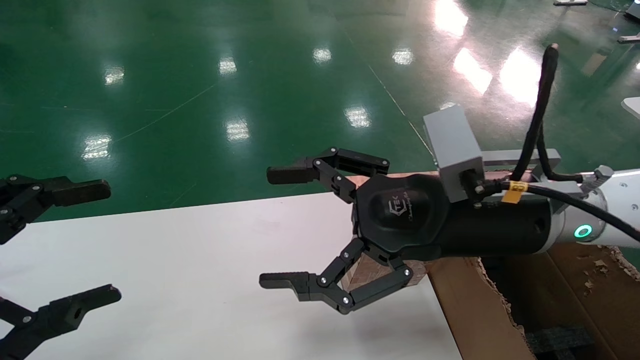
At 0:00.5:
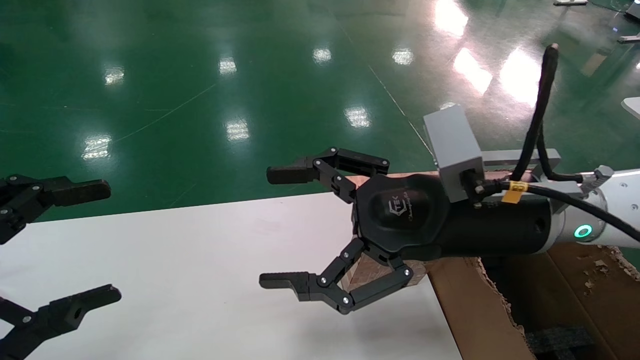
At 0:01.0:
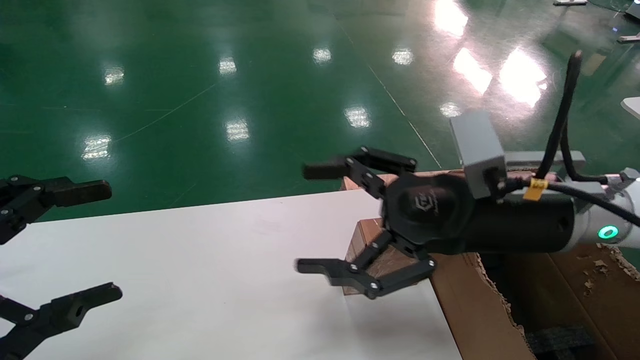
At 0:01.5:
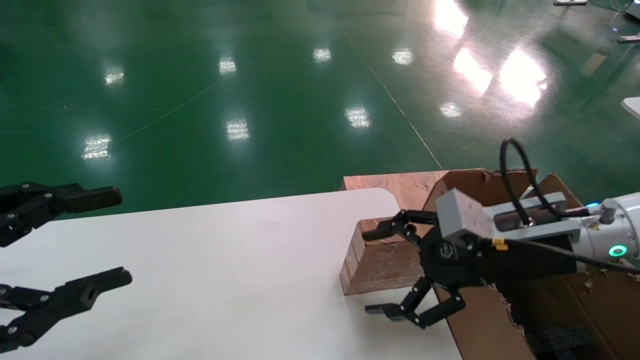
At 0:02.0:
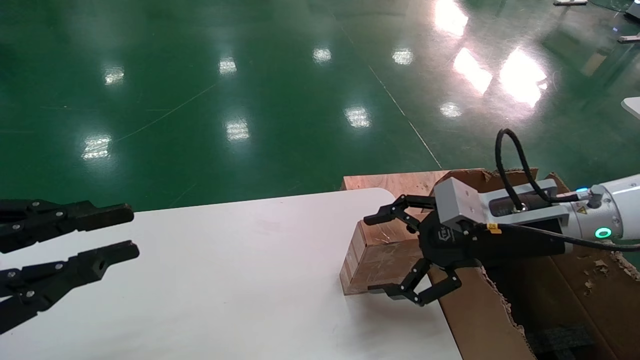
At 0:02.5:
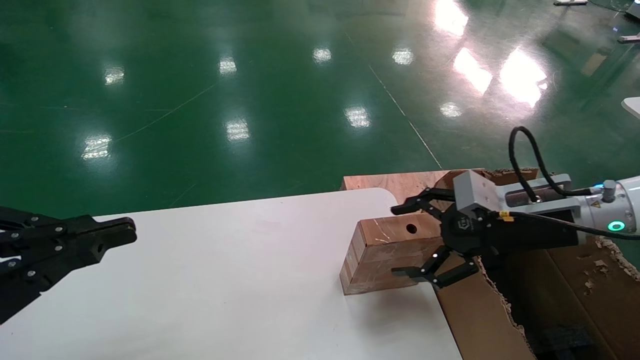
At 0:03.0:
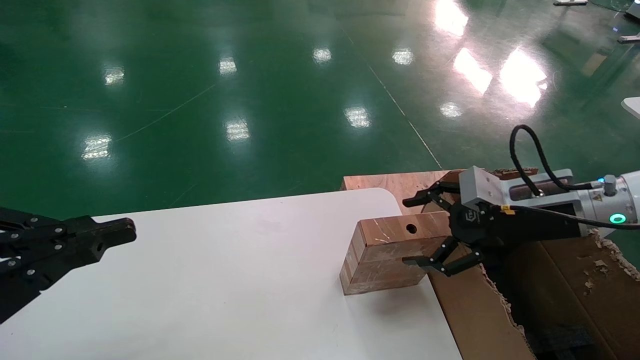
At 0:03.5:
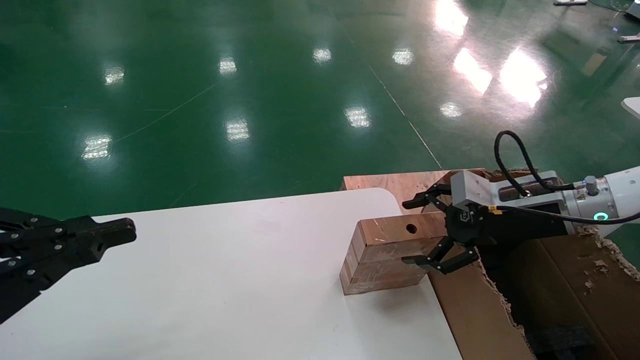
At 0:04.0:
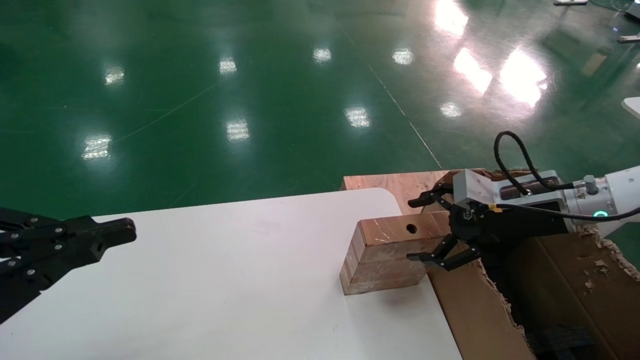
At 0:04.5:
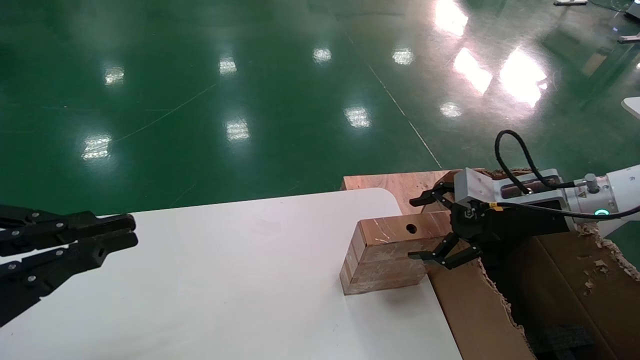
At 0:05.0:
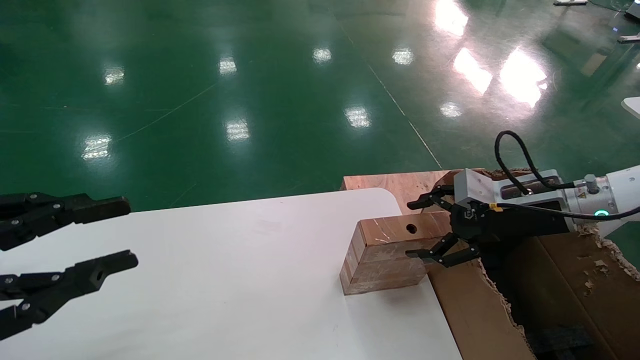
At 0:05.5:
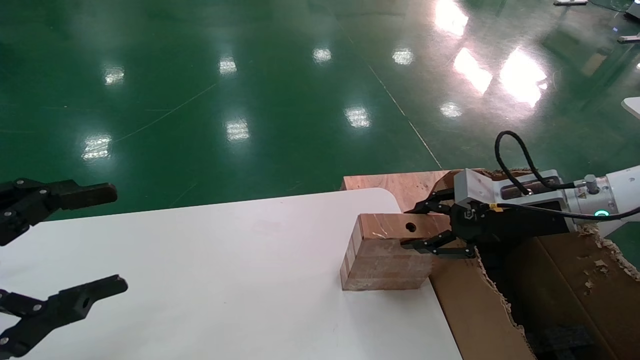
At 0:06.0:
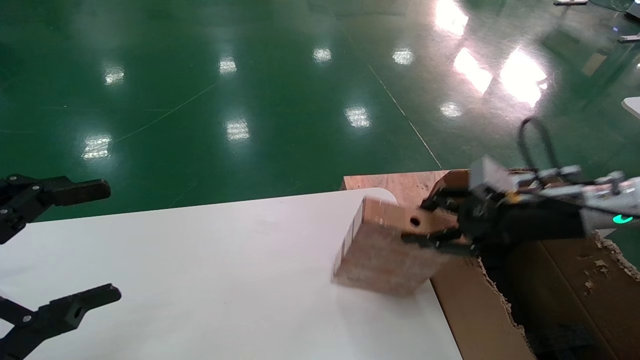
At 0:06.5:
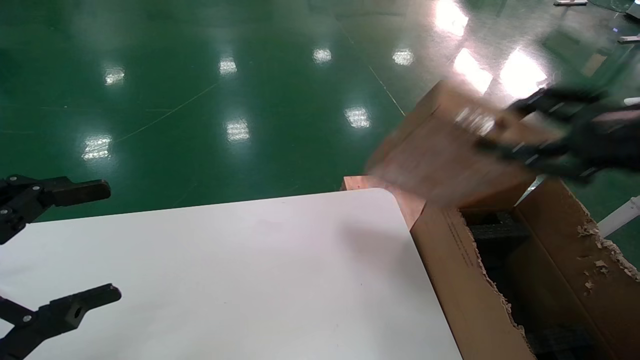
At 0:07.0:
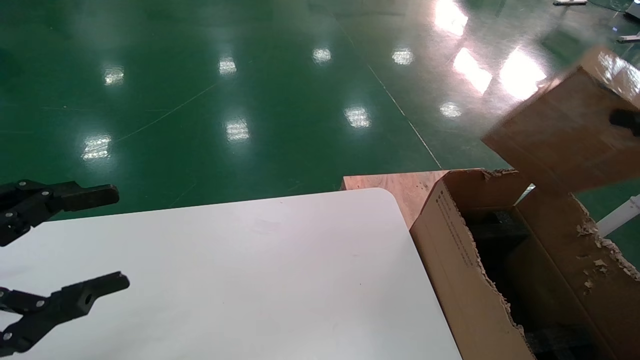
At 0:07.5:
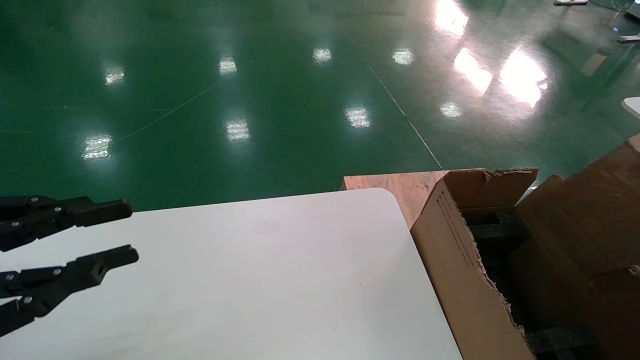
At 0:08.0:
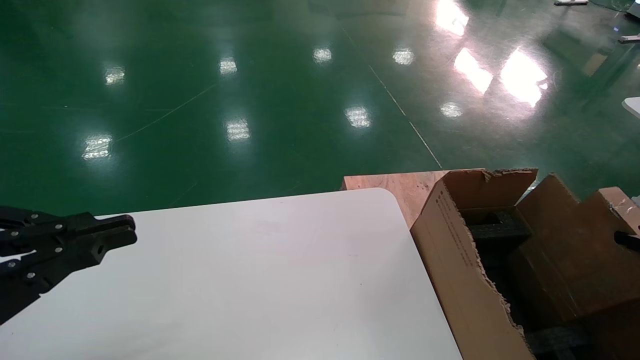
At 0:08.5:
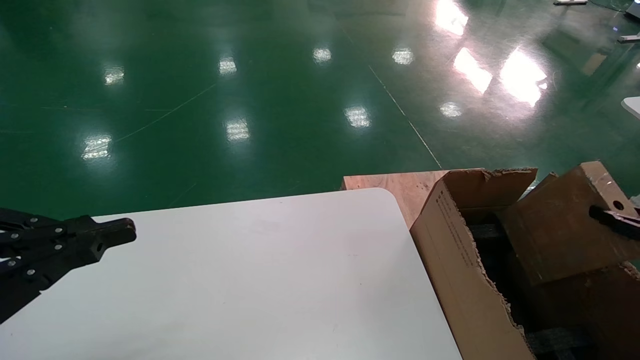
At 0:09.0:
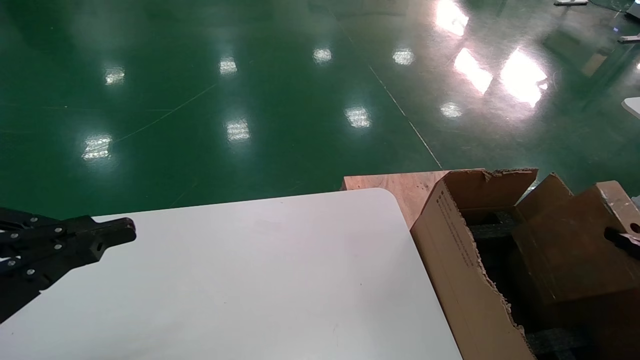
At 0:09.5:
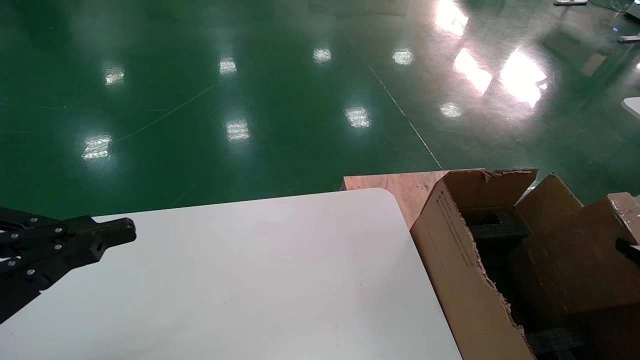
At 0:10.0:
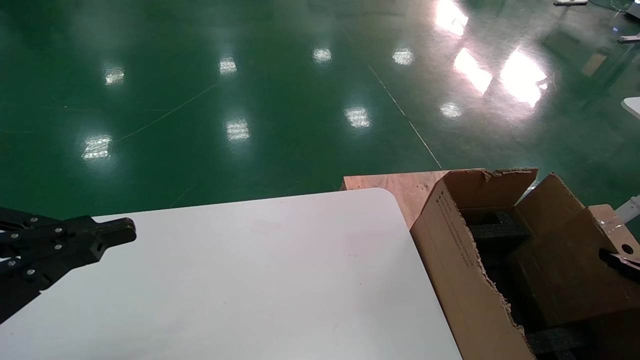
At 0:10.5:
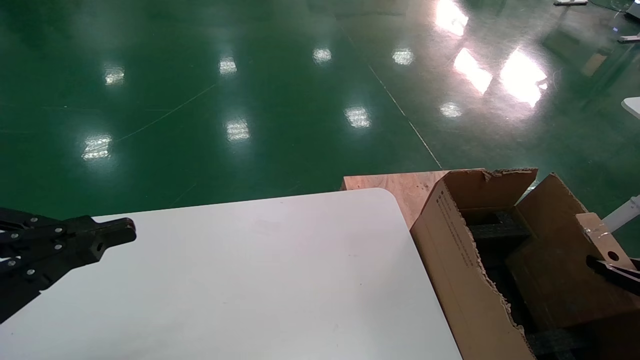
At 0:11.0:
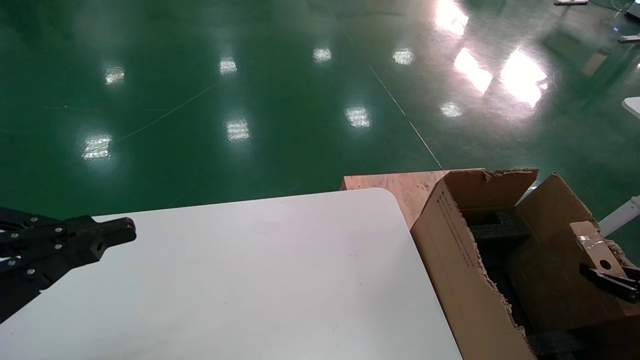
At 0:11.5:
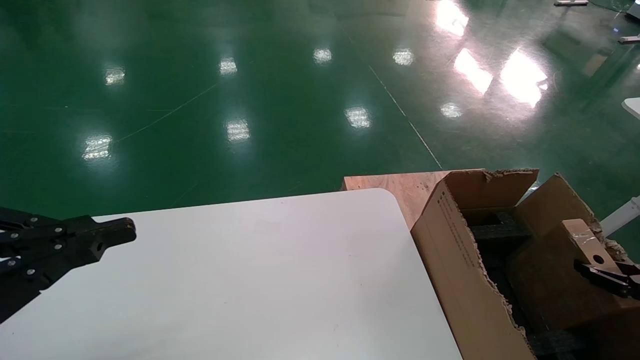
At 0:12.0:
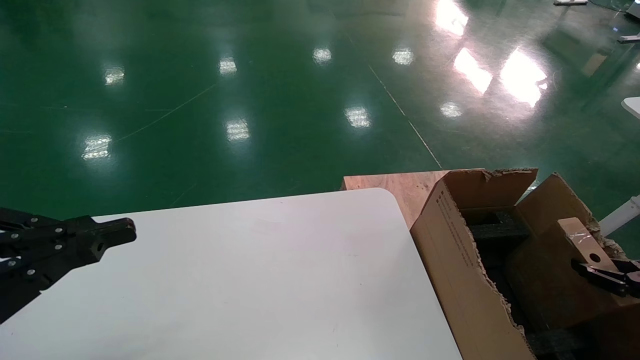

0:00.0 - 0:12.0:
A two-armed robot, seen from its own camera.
Task of the whole recording: put the box on the table into the big box.
Step, 0:01.5 - 0:05.5: Pick up the mouse and the power cord paper box.
0:00.0 - 0:02.0: The left gripper closes its fingers, while the right gripper moves to the right and downward, about 10 cm.
0:02.0 - 0:04.0: The left gripper closes its fingers; the right gripper heads to the right, covering about 5 cm.
0:04.0 - 0:06.0: The left gripper opens its fingers; the right gripper closes its fingers.
0:06.0 - 0:08.0: The right gripper goes roughly 25 cm to the right and backward. The left gripper closes up.
0:08.0 - 0:10.0: The right gripper moves downward, approximately 5 cm.
0:10.0 - 0:12.0: There are only small adjustments of the grippers.

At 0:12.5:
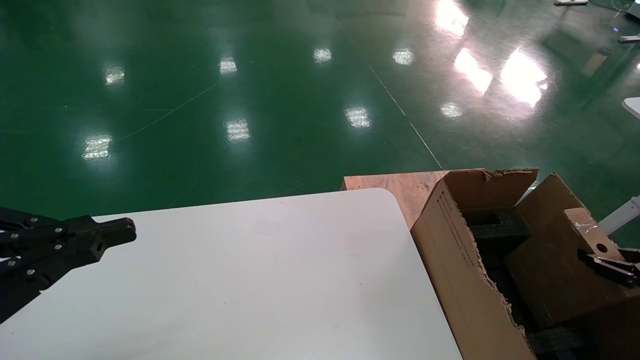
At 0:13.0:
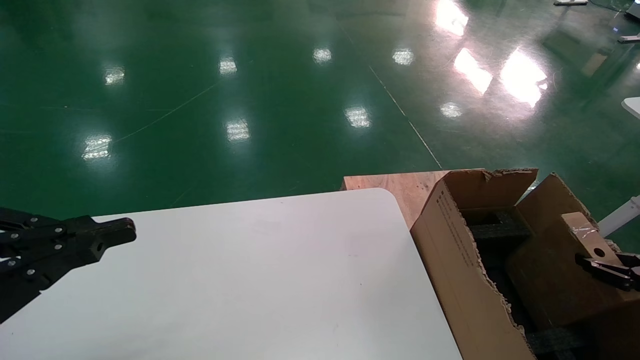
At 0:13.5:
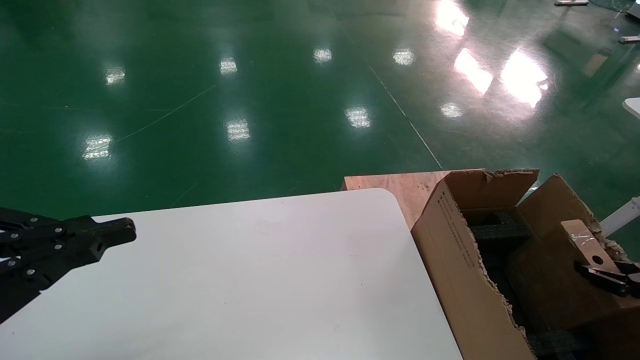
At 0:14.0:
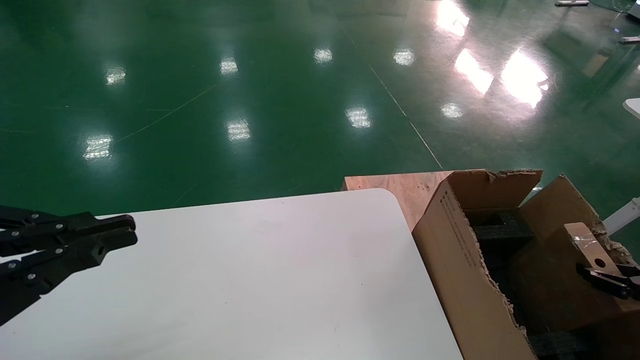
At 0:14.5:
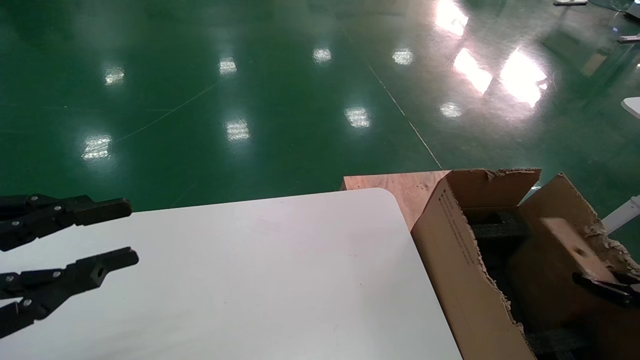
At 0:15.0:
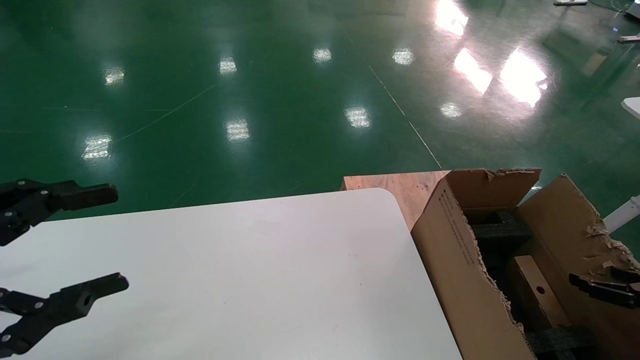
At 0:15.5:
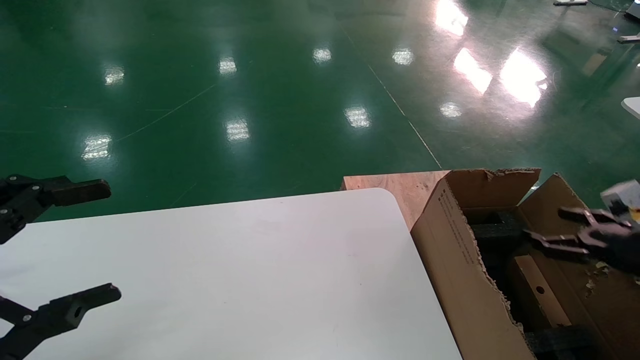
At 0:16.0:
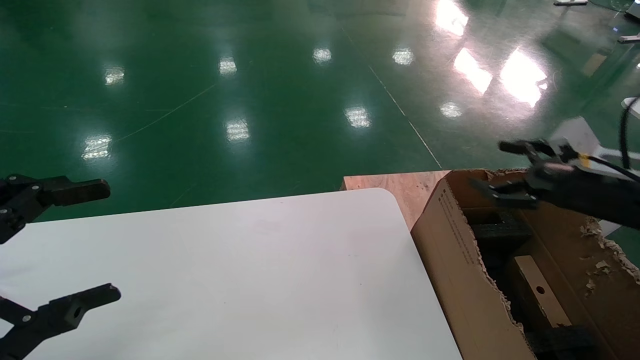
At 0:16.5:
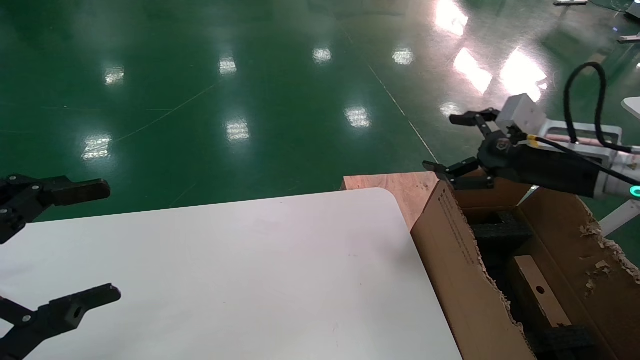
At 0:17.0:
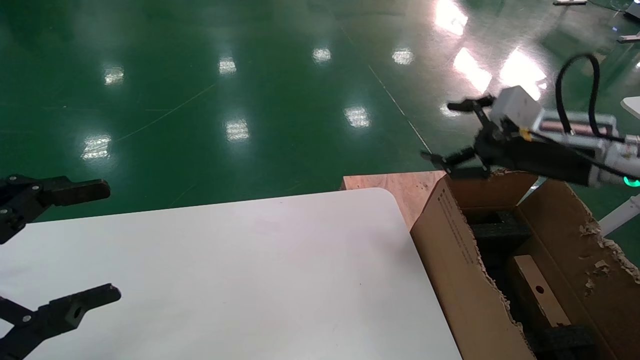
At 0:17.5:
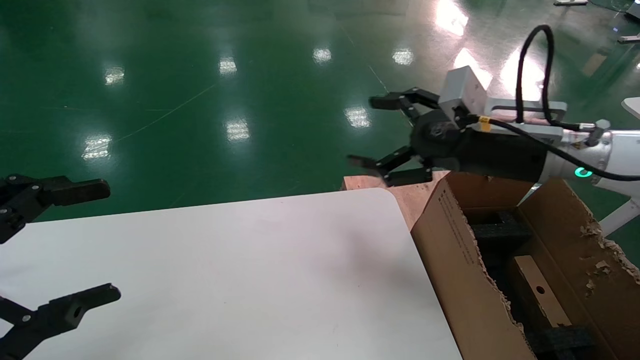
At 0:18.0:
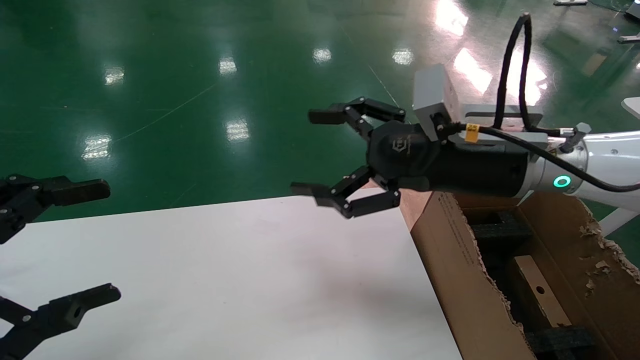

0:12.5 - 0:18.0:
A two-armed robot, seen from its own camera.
Task of the whole recording: put the box on the table into the big box.
Step, 0:12.5 - 0:14.5: Place the mouse and the power cord paper box into the container.
0:12.5 - 0:14.5: The grippers make only small movements.
0:14.5 - 0:16.0: The left gripper opens. Meanwhile the right gripper travels upward, to the left and forward by approximately 20 cm, and opens its fingers.
0:16.0 - 0:18.0: The right gripper travels to the left by some 25 cm.

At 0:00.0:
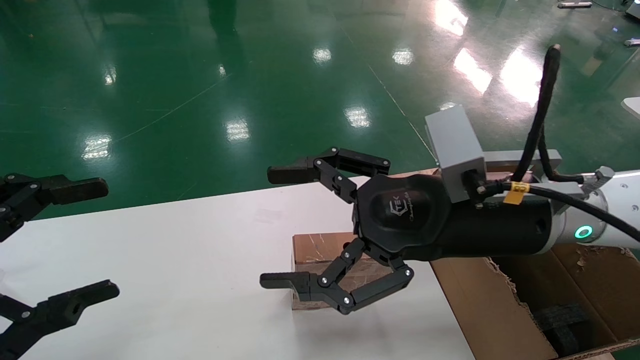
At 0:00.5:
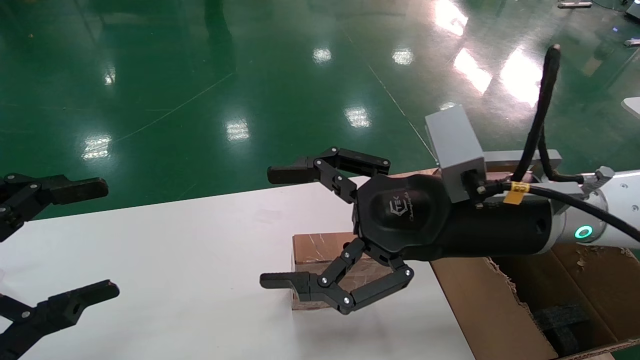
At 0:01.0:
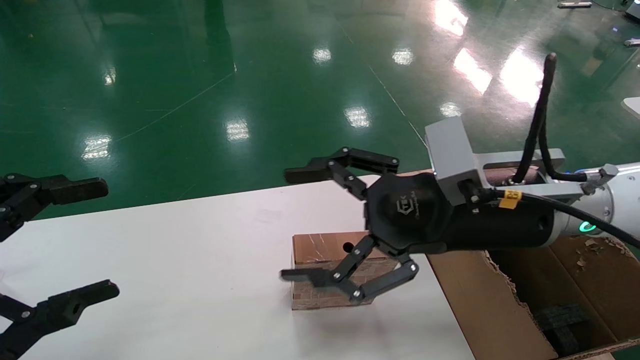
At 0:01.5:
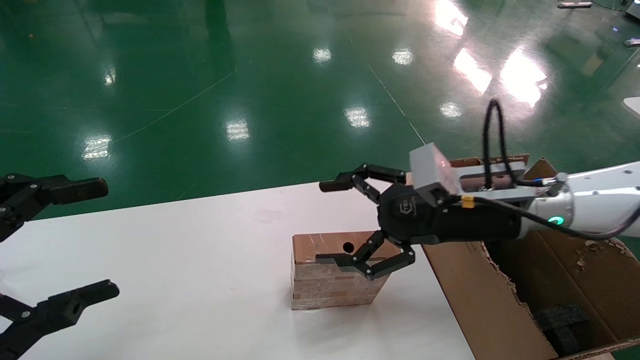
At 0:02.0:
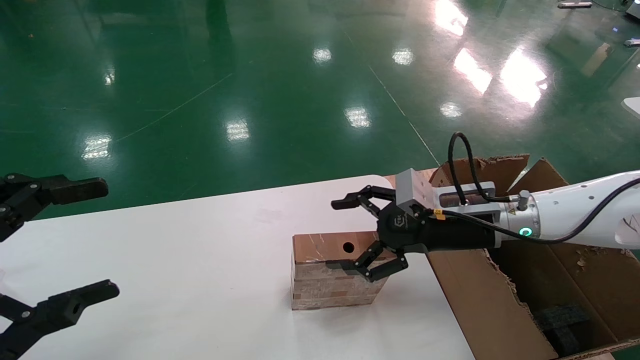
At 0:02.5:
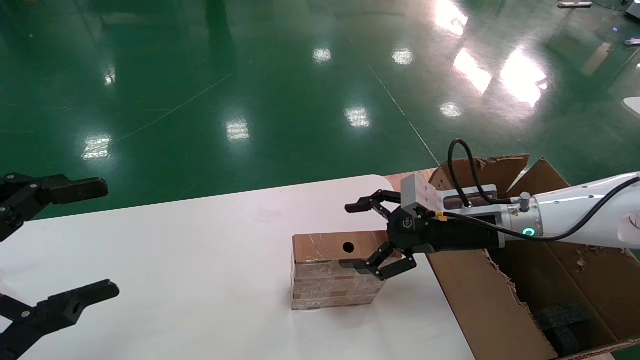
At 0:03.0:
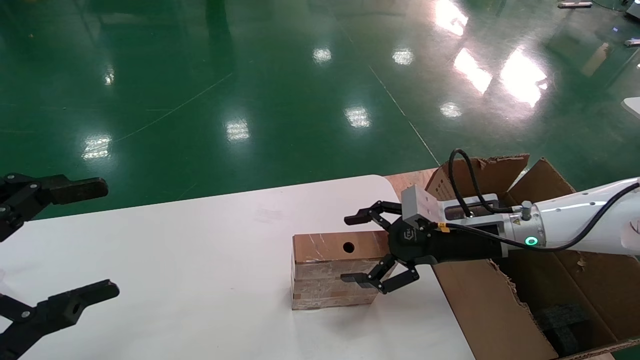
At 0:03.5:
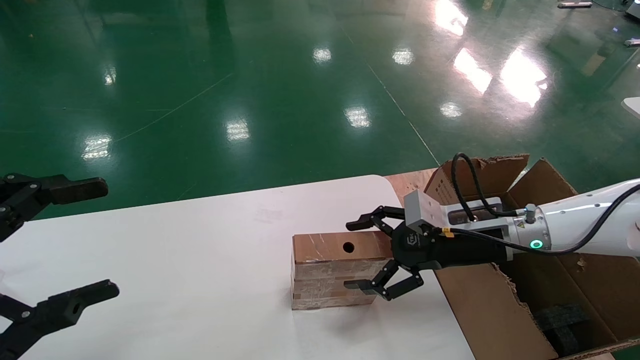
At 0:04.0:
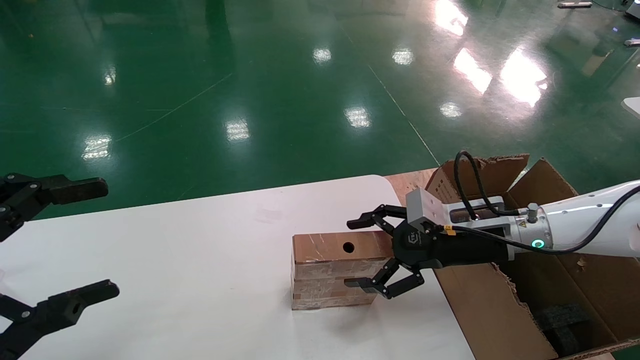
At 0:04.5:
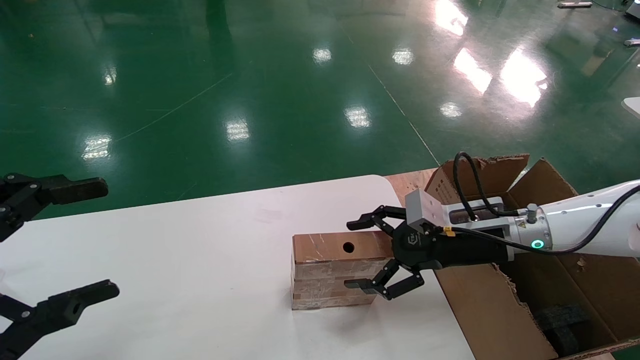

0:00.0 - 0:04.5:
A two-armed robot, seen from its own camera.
Task of the whole recording: put the box on the table into the big box.
0:00.0 - 0:02.0: The right gripper travels forward, downward and to the right by some 15 cm.
0:02.0 - 0:04.5: The grippers move only a little.
